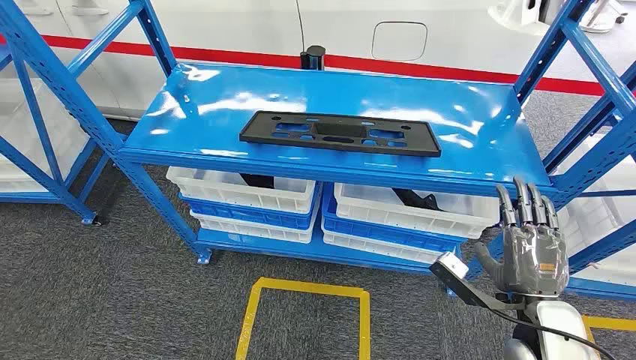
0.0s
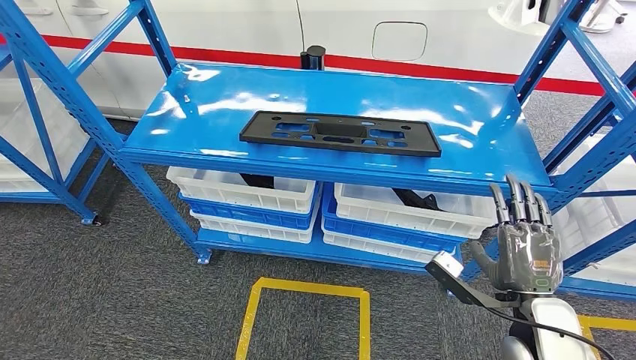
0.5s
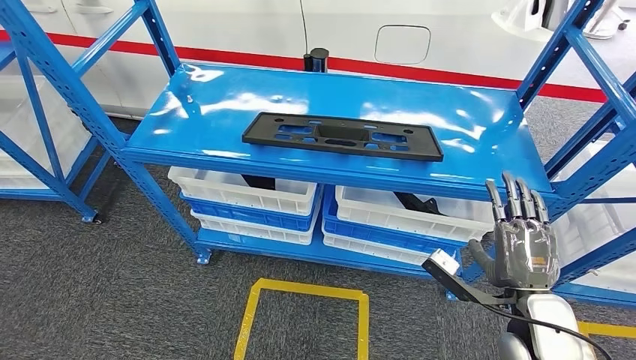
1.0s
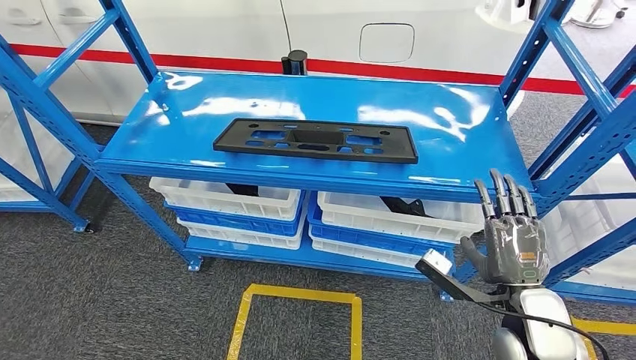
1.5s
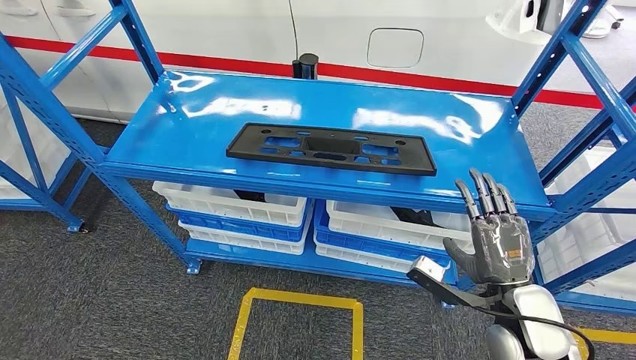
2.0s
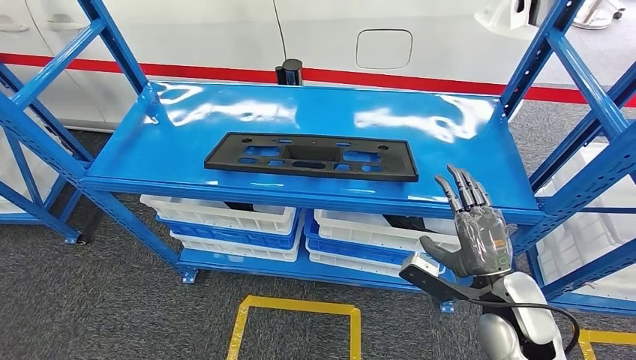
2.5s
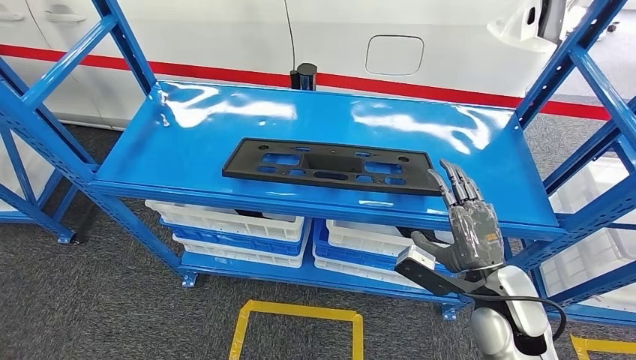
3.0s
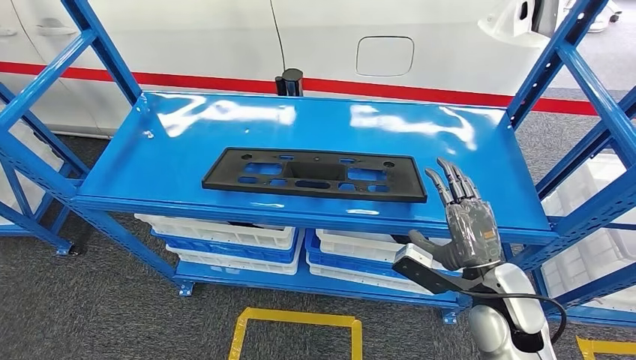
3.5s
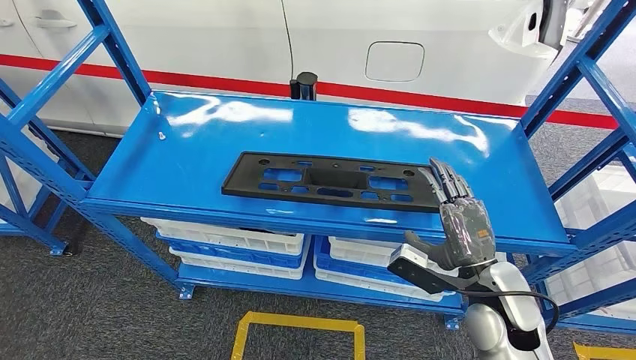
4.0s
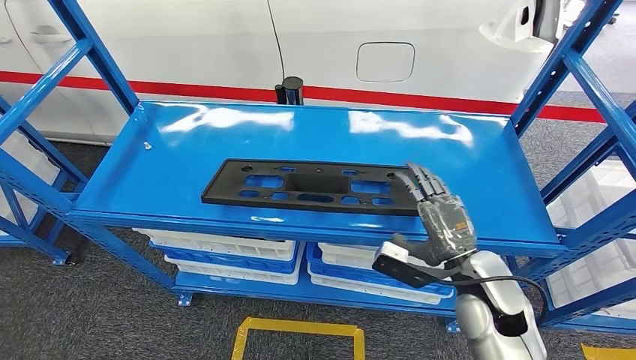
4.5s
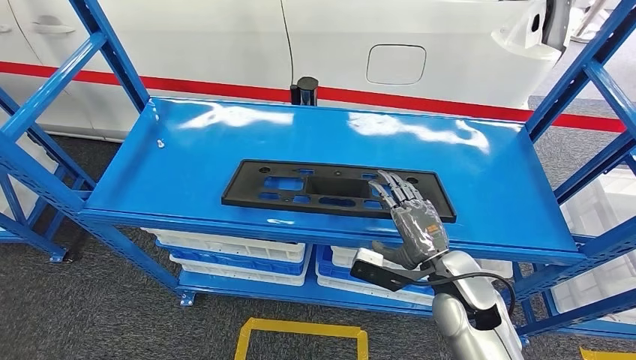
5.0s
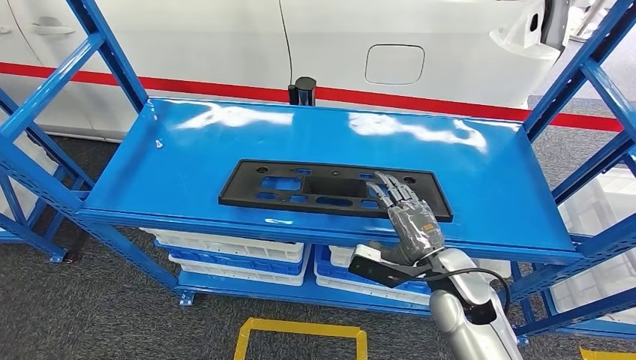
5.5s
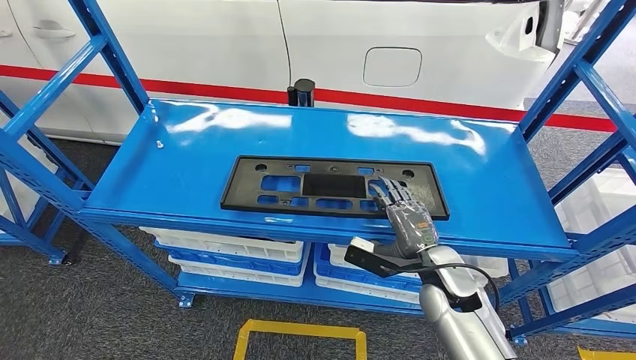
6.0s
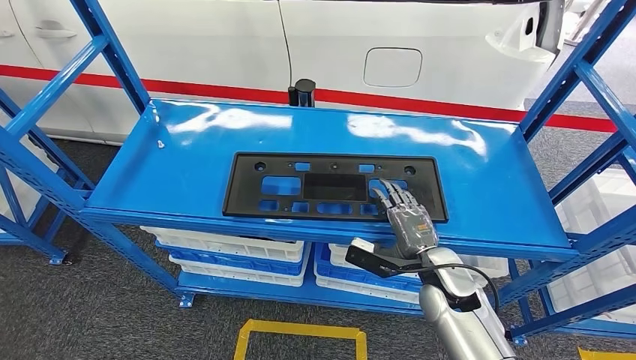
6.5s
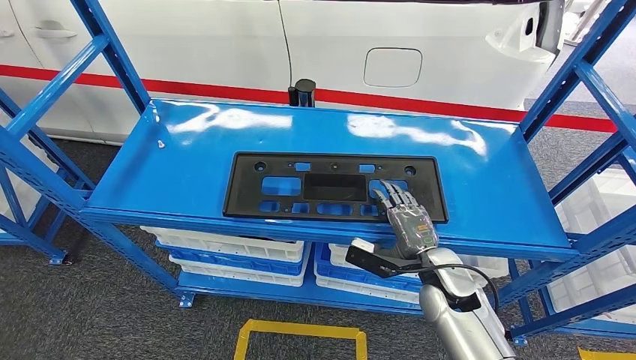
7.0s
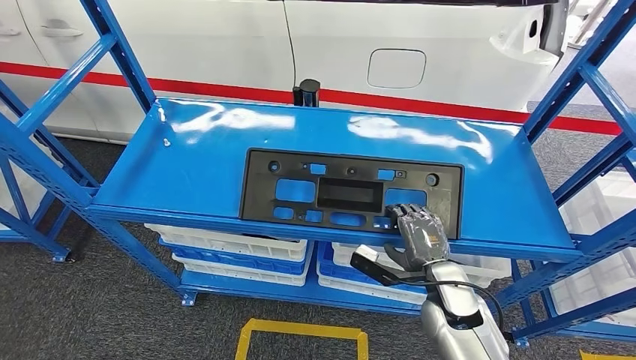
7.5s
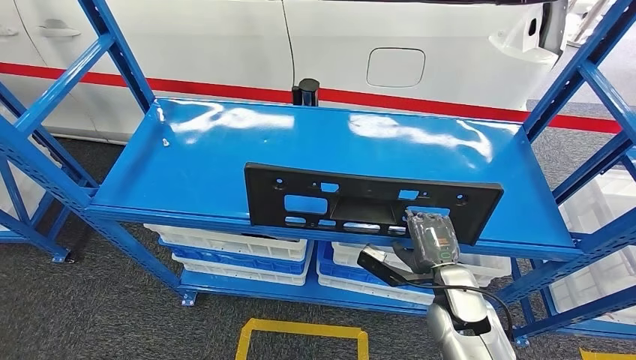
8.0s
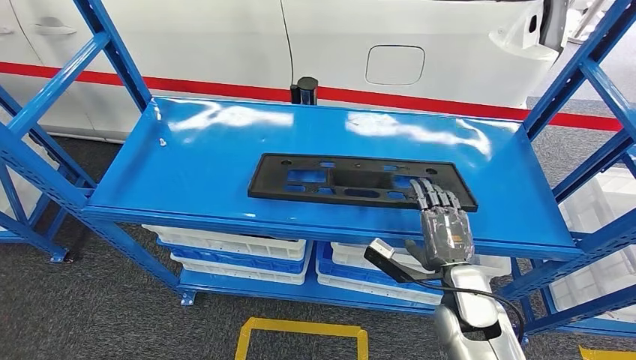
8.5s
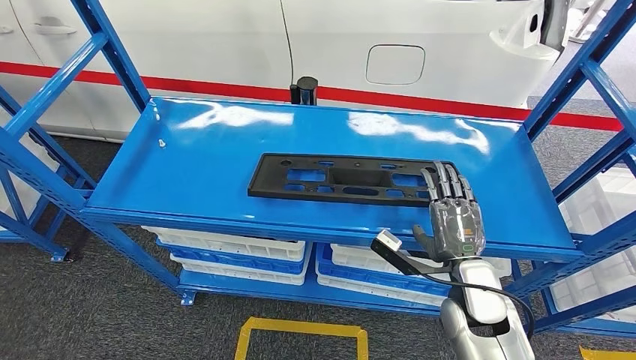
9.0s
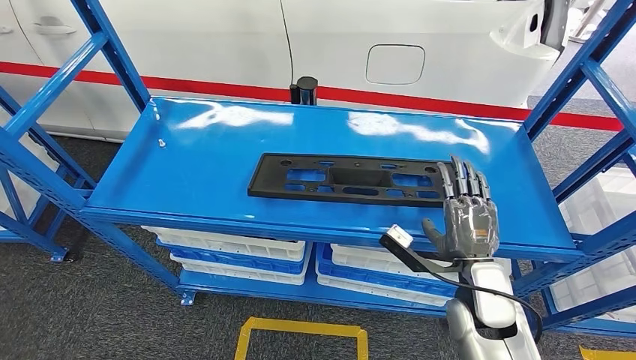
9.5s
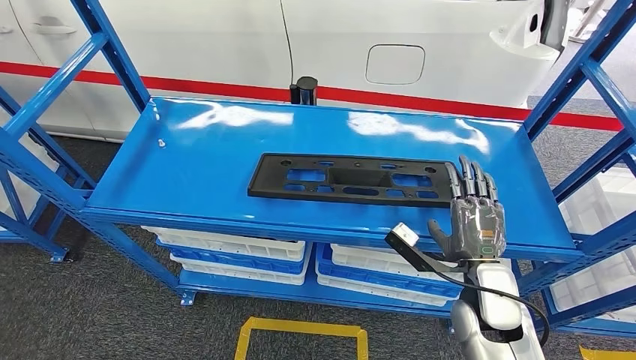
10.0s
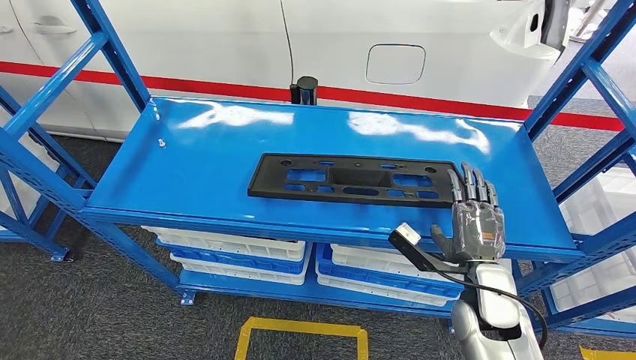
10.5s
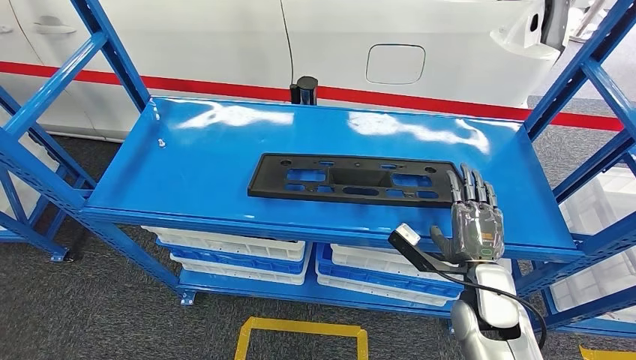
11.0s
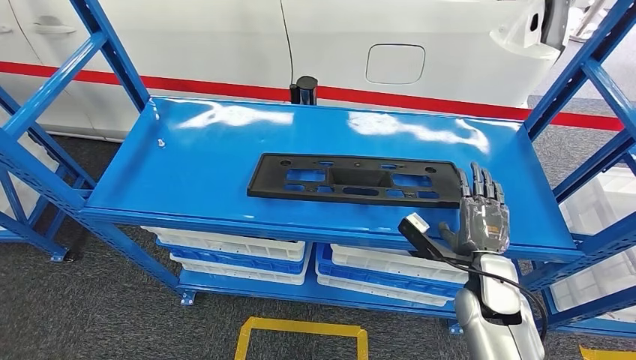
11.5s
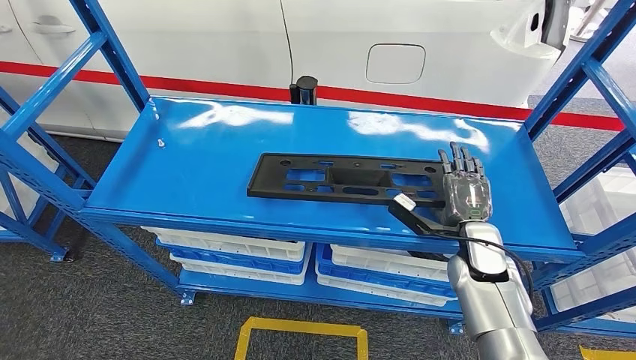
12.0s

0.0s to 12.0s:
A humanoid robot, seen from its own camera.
10.0s to 12.0s: The right hand heads forward, covering roughly 10 cm.

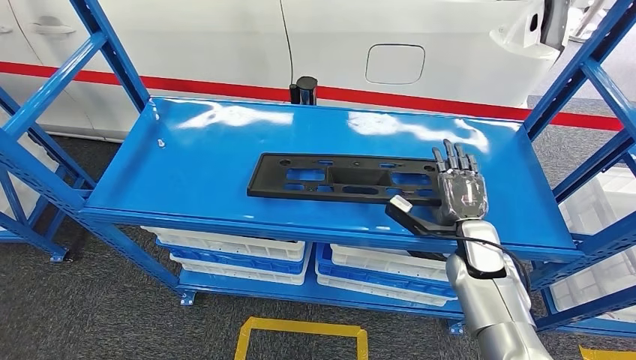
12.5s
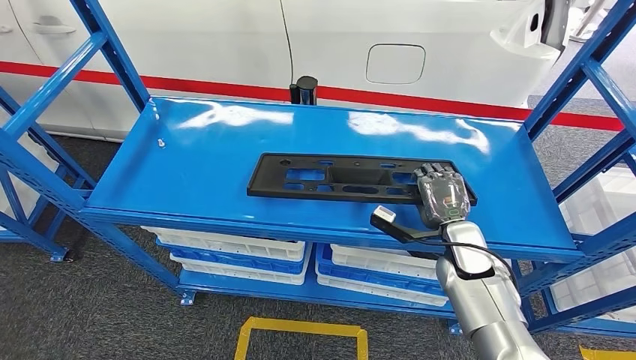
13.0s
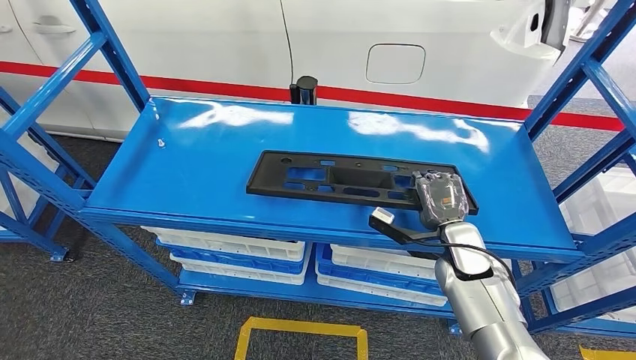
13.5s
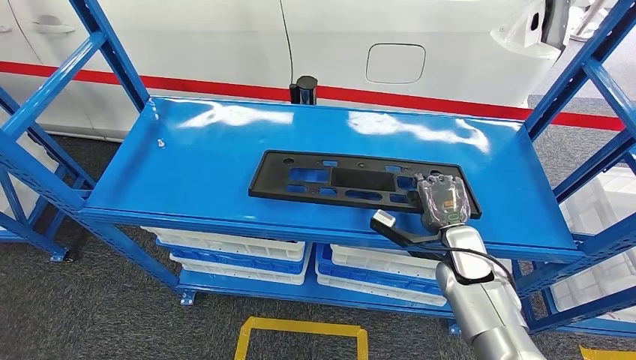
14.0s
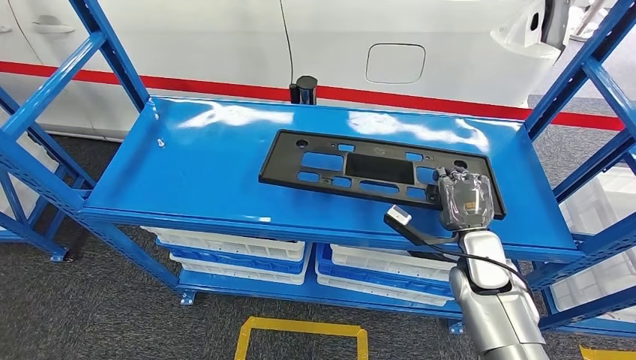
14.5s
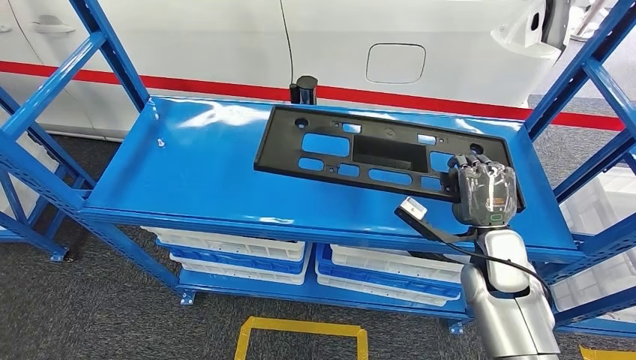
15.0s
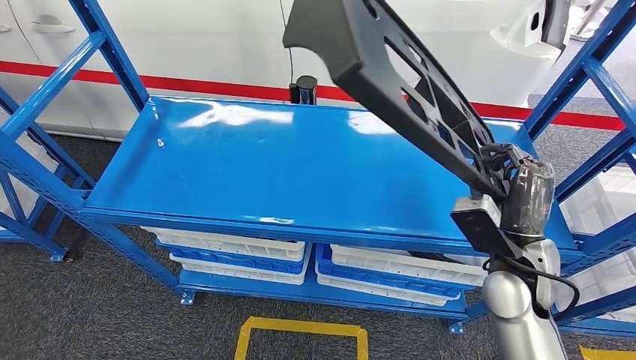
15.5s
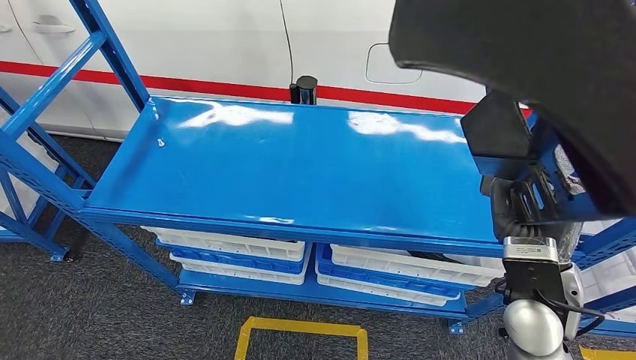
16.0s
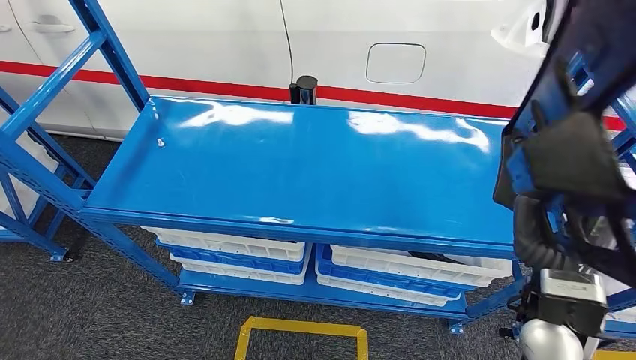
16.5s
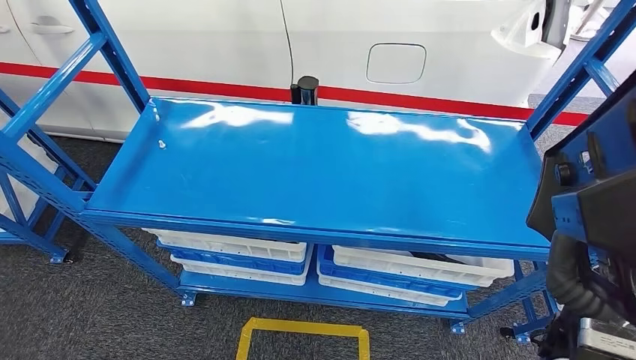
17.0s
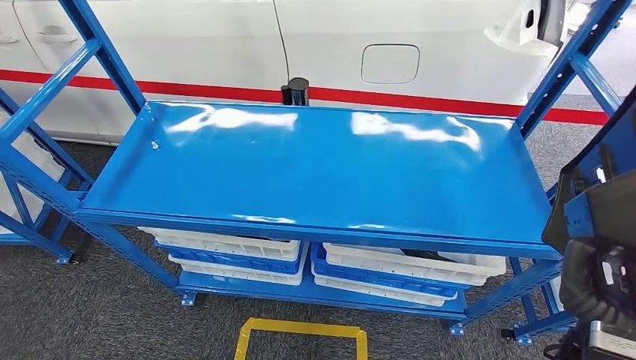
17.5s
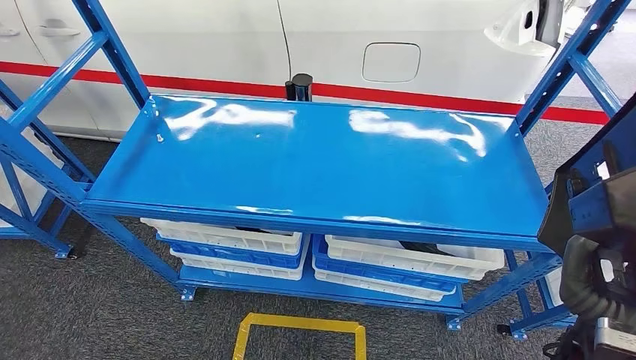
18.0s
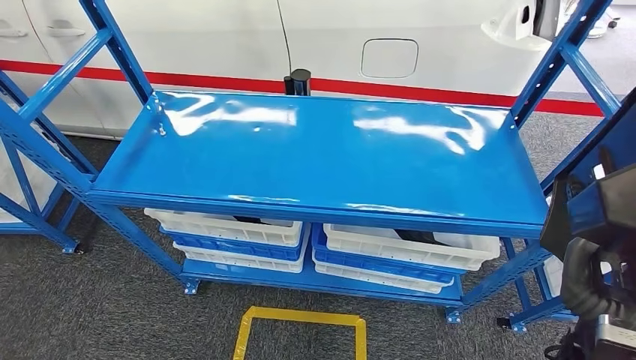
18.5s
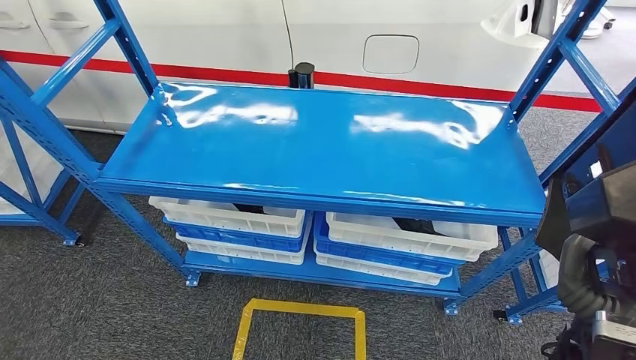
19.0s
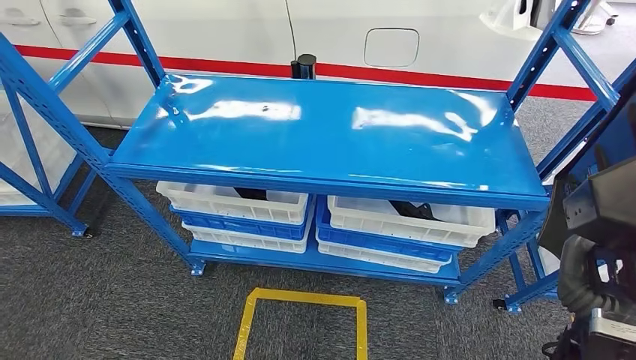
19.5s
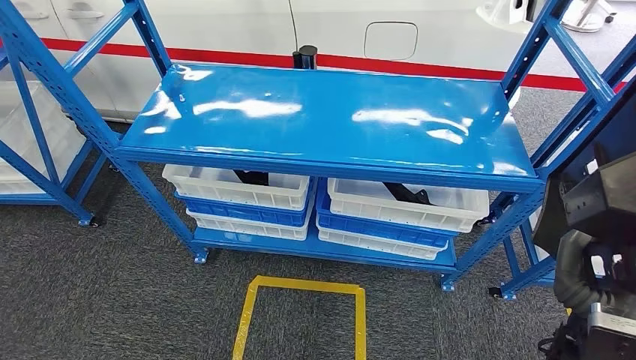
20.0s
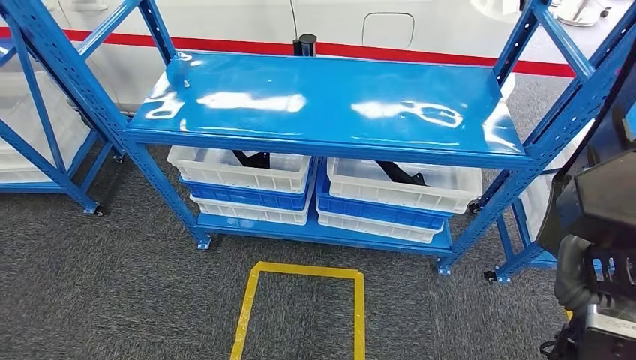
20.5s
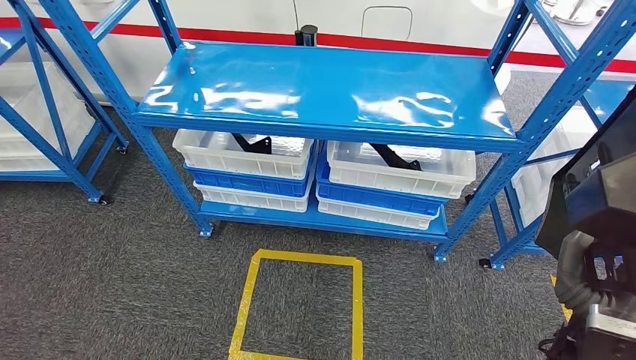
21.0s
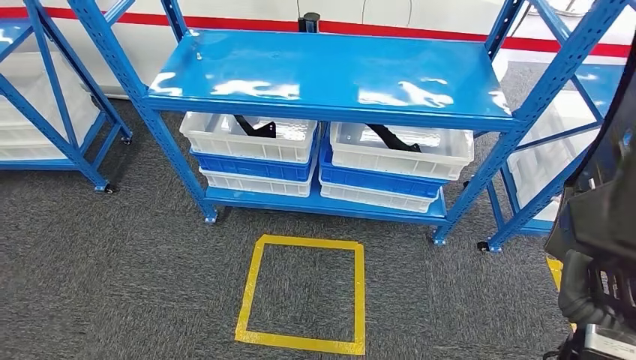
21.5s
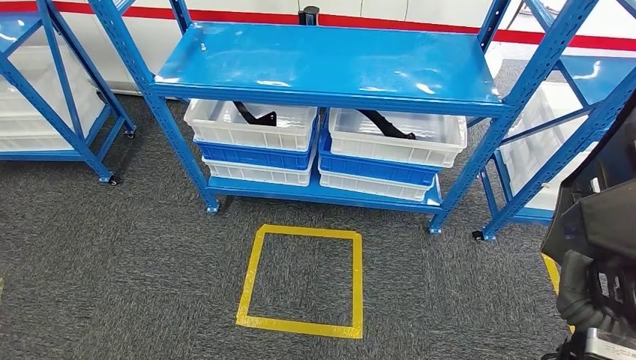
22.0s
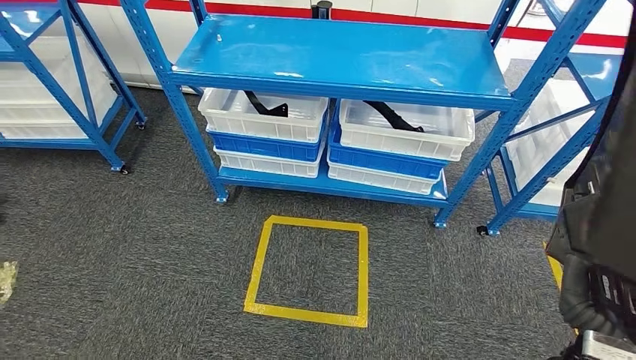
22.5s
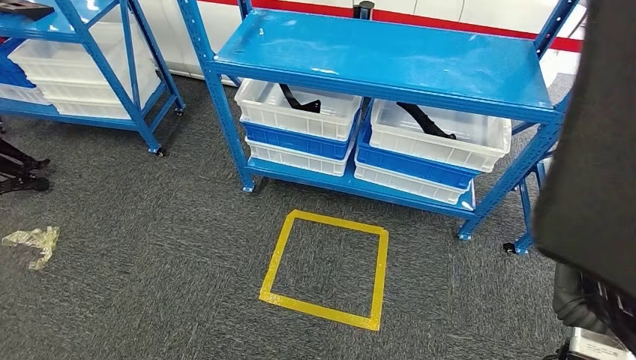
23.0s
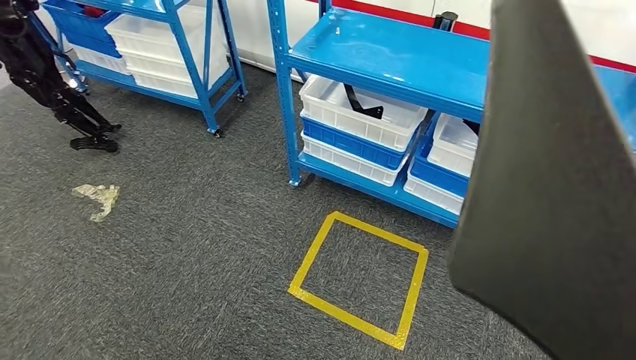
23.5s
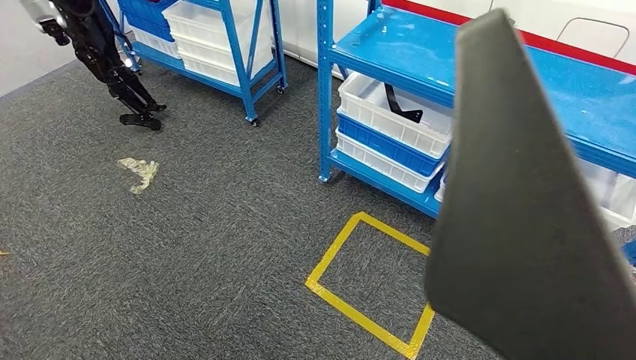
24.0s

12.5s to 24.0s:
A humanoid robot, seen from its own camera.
Step, 12.5s to 20.0s: Pick up the large material from the shelf.
12.5s to 14.5s: The hands make only small movements.
